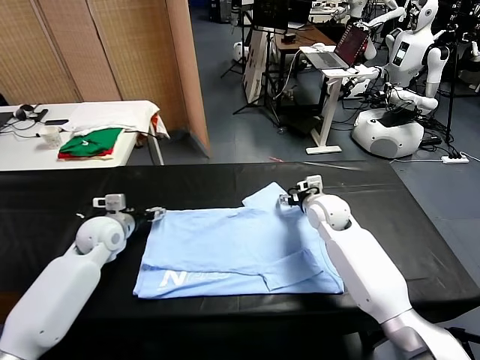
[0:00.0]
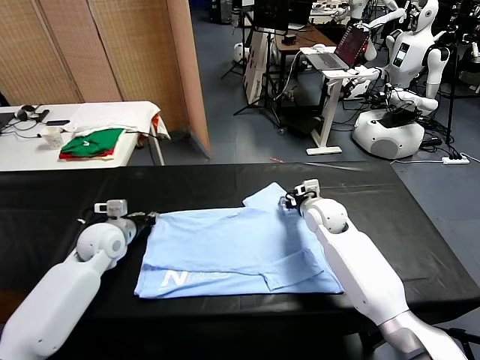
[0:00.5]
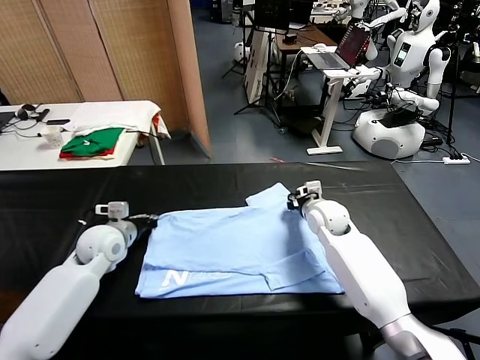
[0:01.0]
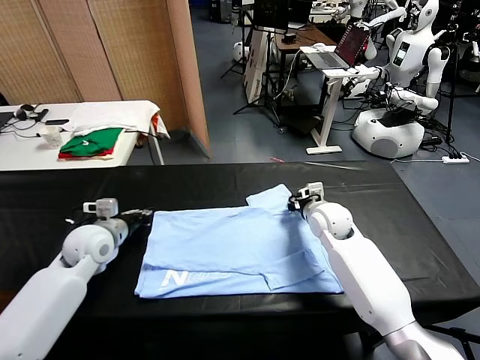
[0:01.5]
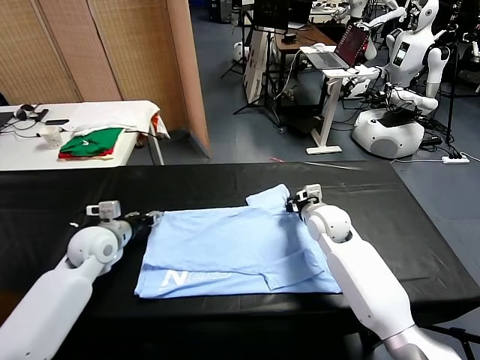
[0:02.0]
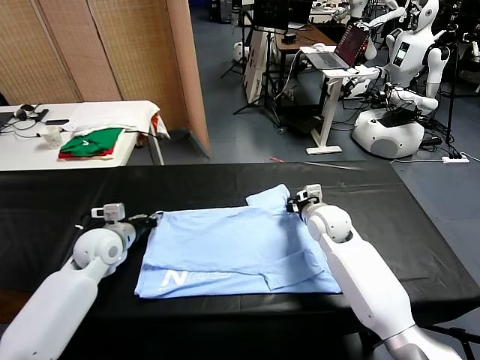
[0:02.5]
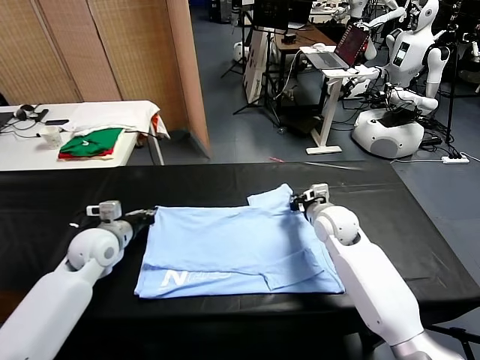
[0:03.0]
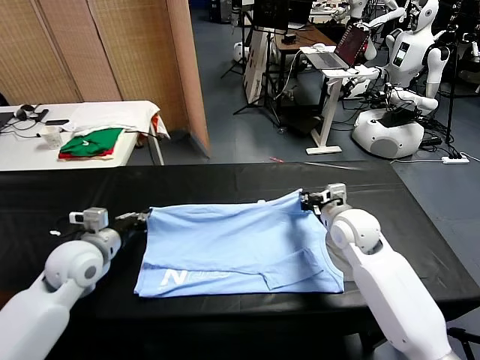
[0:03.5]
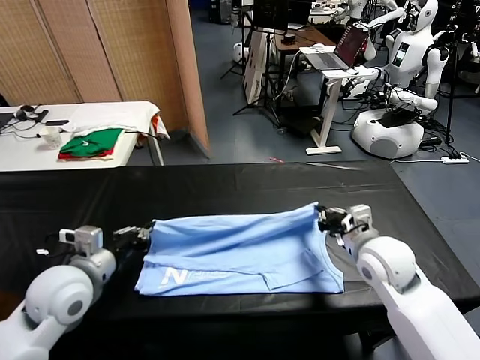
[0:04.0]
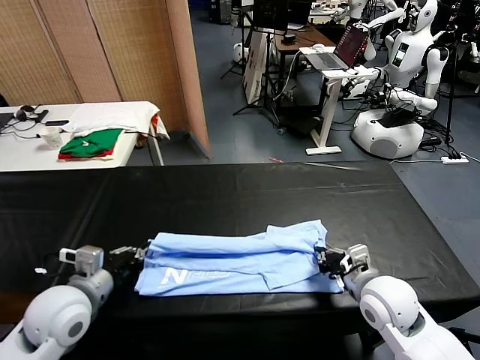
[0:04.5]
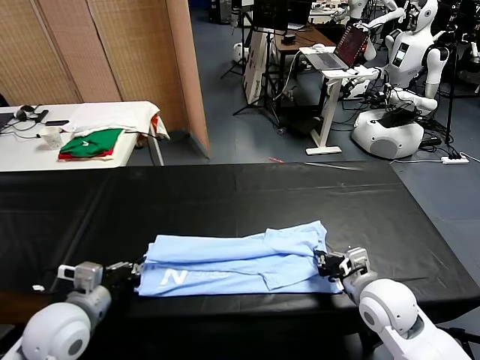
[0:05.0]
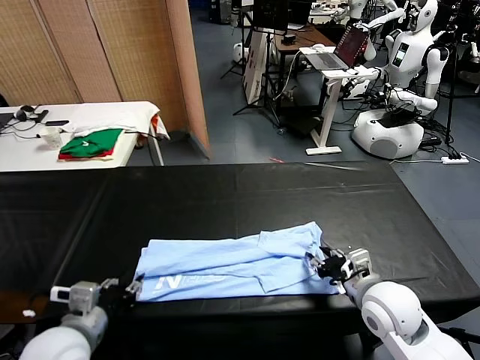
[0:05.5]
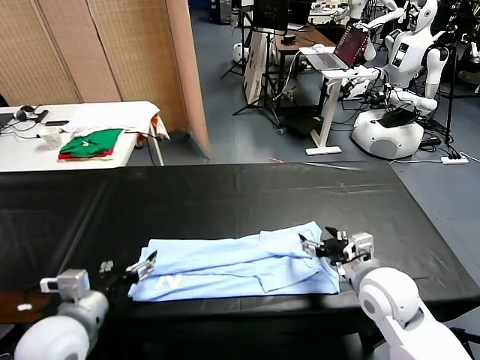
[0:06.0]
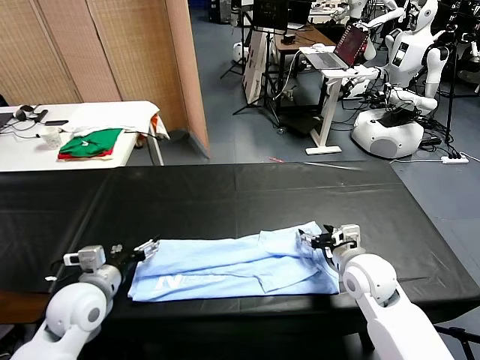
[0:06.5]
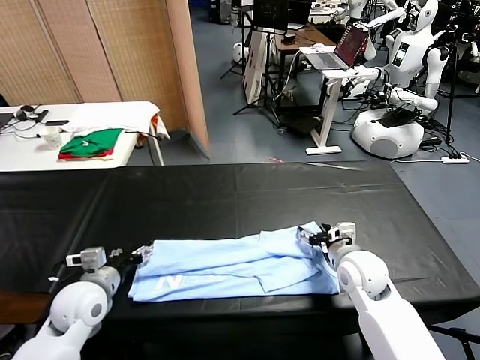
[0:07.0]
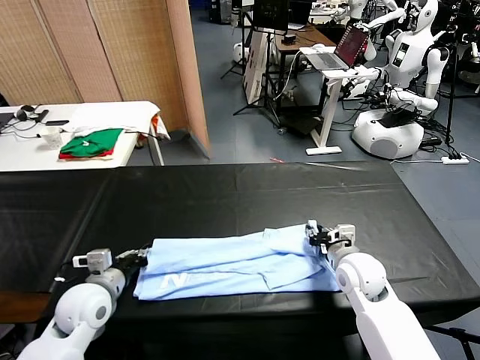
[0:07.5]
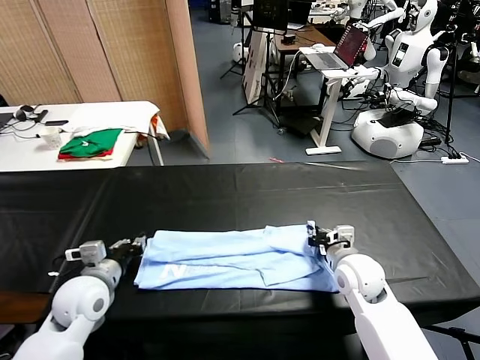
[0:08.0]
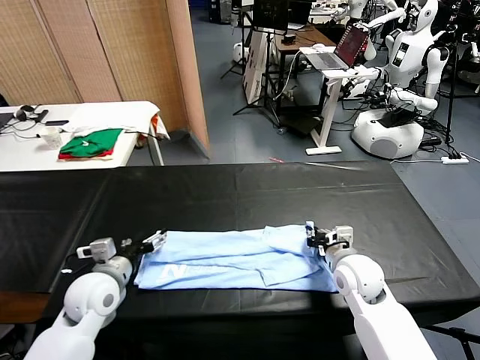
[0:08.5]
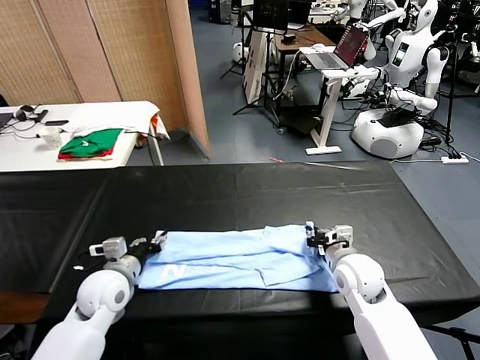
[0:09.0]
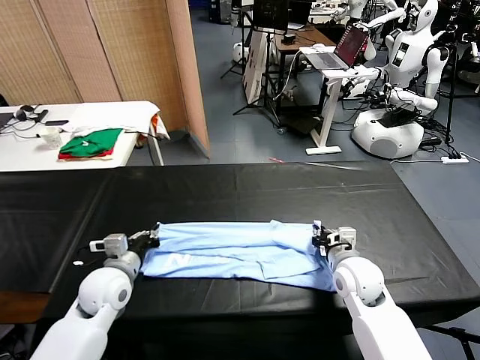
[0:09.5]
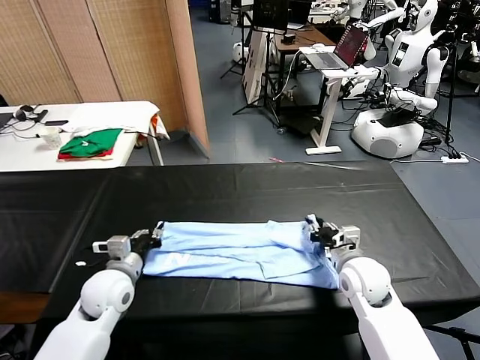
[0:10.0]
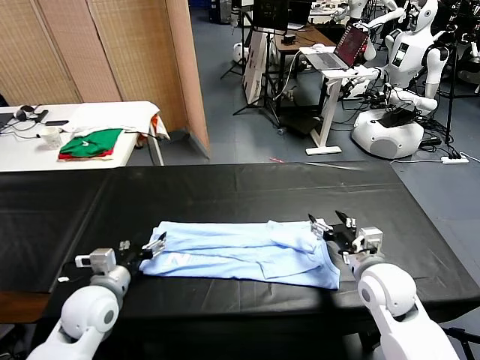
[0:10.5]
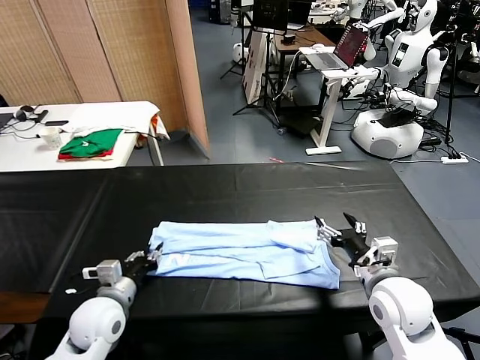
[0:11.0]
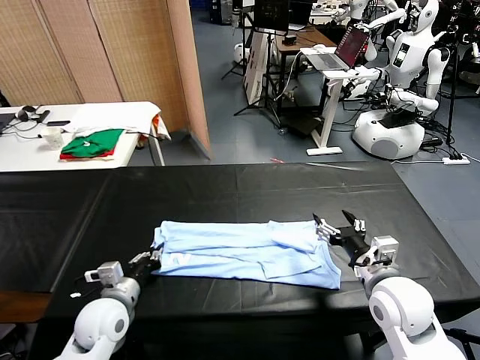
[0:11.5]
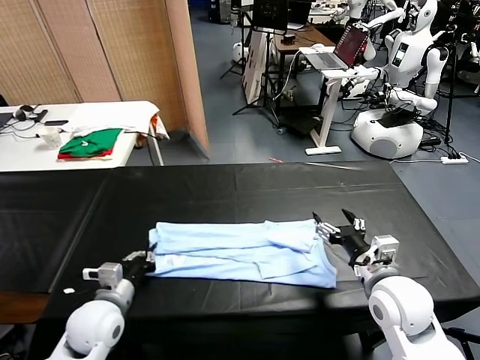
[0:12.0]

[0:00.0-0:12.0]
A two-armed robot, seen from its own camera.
Task of the whole recording: fold and organize the clothes.
Step, 1.0 to 5.5 s: use both grippers to drag the upper edge of the fabric backward and fold it over the lower edge.
Step, 6.0 to 11.5 s: use the left gripper to clamp the left edge of the fabric.
0.0 to 2.0 s: The right gripper closes its fingers, while the left gripper closes and opens again.
2.0 to 4.0 s: The left gripper shifts some 15 cm backward and upward, and closes; the right gripper travels backward and to the right by about 15 cm.
4.0 to 6.0 s: The left gripper shifts some 5 cm backward, and opens; the right gripper opens.
6.0 to 8.0 s: The right gripper travels downward by roughly 5 cm, and closes its fingers. The left gripper shifts approximately 10 cm forward and downward, and closes.
8.0 to 10.0 s: The left gripper closes and opens again. The right gripper opens.
10.0 to 12.0 s: The left gripper goes about 5 cm backward, and opens and closes again. The right gripper travels backward and upward by approximately 10 cm, and opens up.

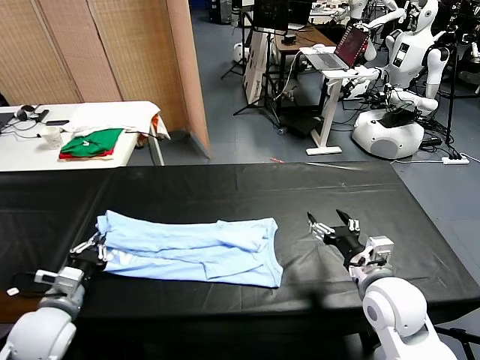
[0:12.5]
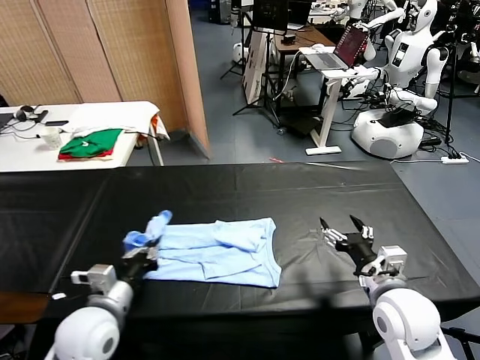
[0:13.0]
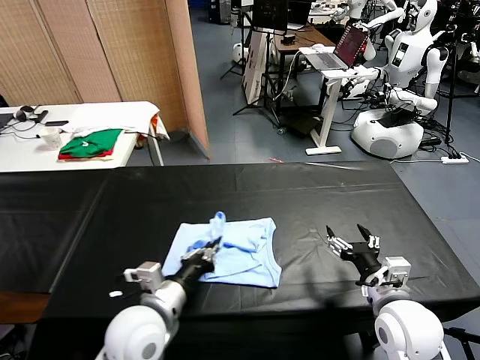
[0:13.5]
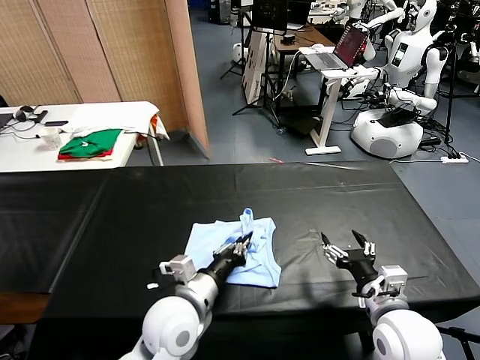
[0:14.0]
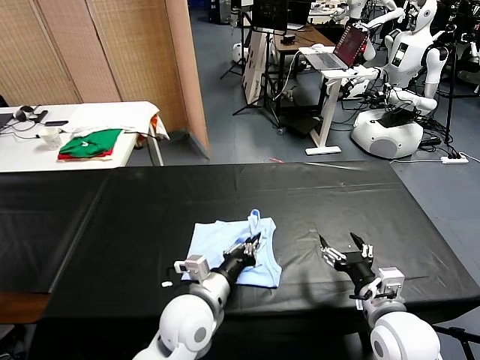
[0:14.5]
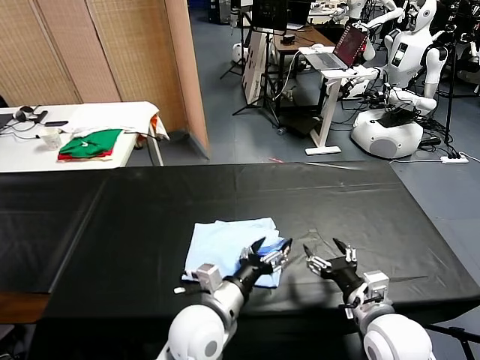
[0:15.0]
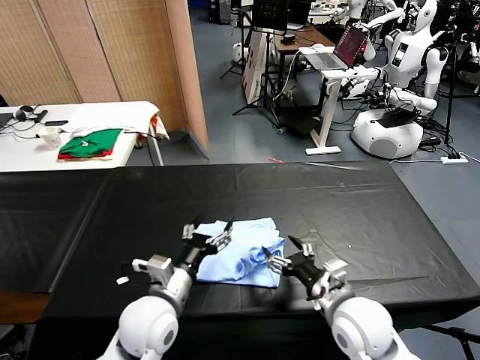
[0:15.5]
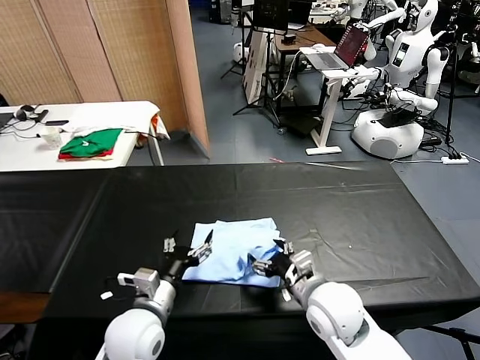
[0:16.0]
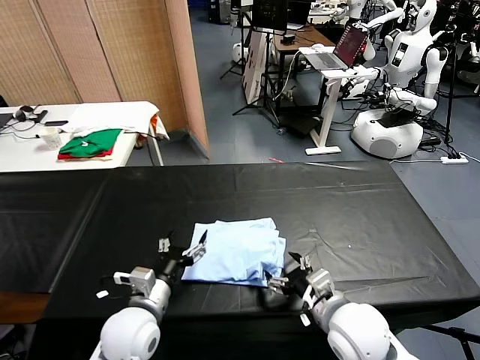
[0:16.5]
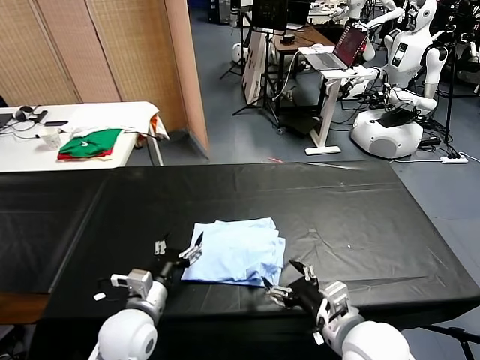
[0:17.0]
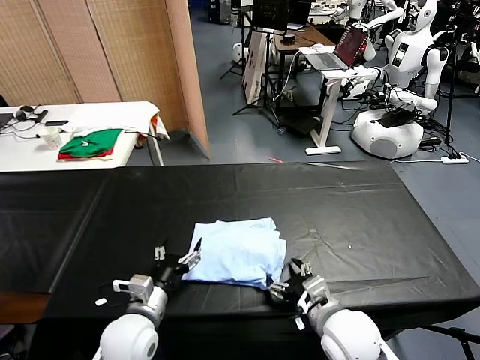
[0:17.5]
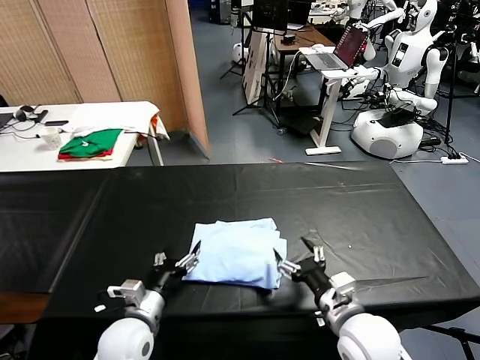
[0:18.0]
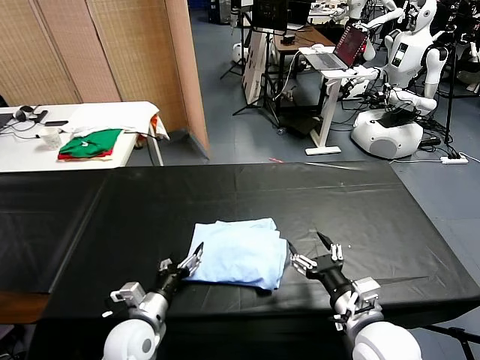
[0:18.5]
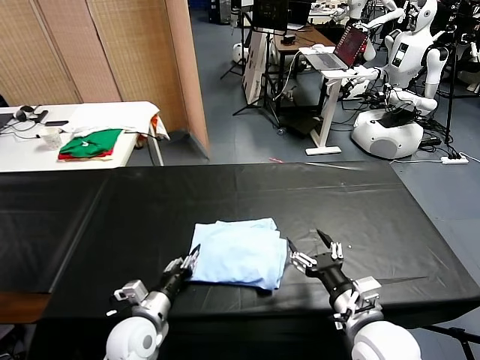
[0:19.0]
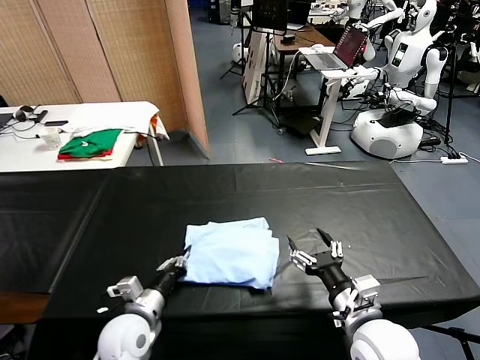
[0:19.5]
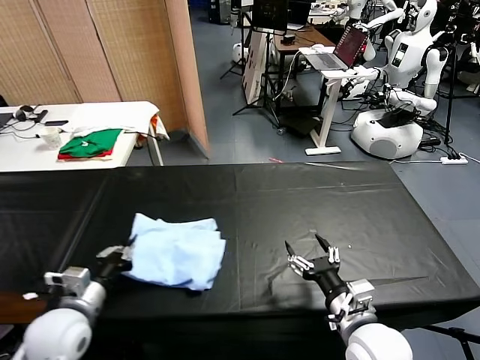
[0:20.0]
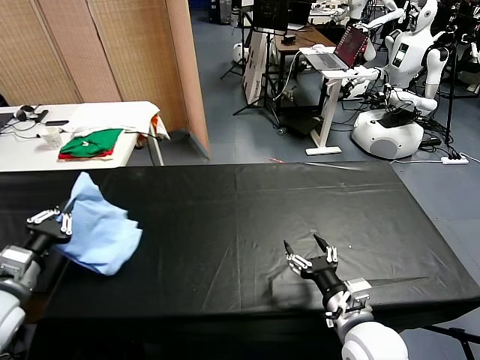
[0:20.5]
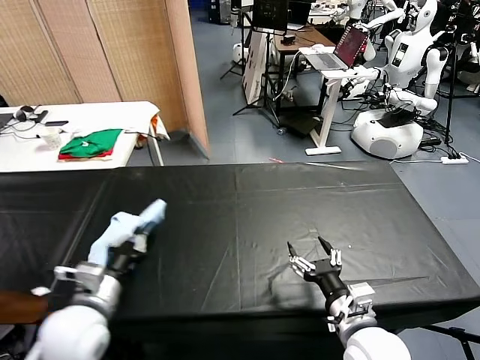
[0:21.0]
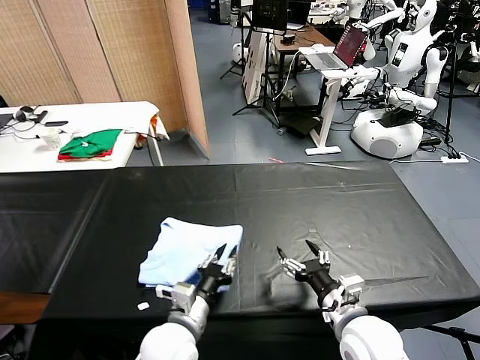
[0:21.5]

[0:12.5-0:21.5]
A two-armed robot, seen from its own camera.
Task of the whole recording: fold and organize the clothes.
Step, 12.5 to 14.5 s: use the left gripper to drag the left edge of the fabric to the left and folds it over the right edge.
Step, 15.0 to 21.5 s: Flip the folded clothes over with left gripper.
12.5 to 14.5 s: The left gripper goes some 25 cm to the right. The right gripper heads backward, covering about 5 cm.
14.5 to 17.0 s: The left gripper goes some 10 cm to the left, and opens up, while the right gripper travels to the left by approximately 5 cm.
17.0 to 19.5 s: The left gripper ends up some 5 cm from where it was, and closes.
19.5 to 21.5 s: The left gripper travels to the right by approximately 10 cm.

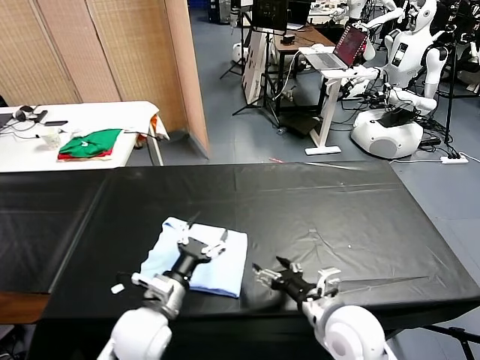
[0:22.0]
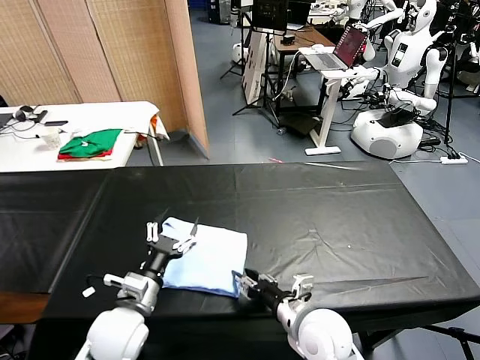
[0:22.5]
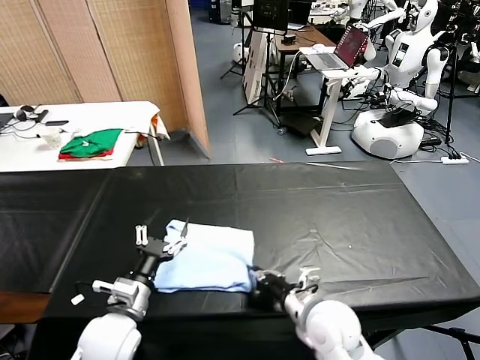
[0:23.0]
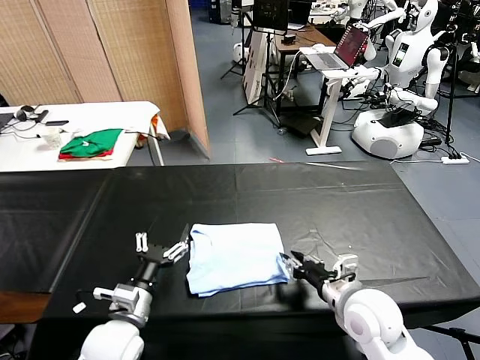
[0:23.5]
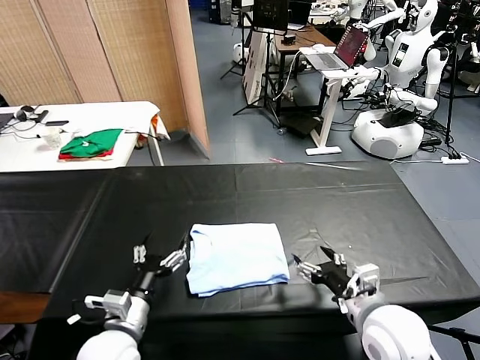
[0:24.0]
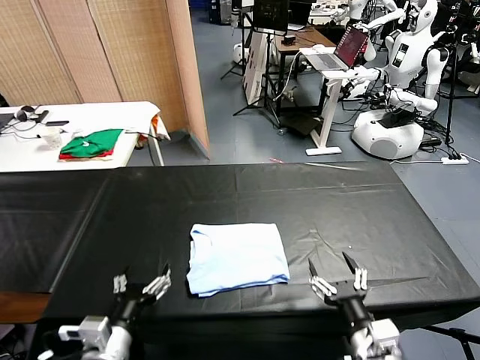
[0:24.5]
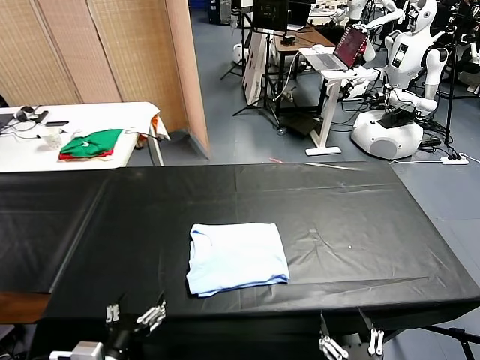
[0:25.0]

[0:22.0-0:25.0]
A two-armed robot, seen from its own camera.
Task of the whole recording: fold and organize the clothes.
Step, 22.0 to 23.5 s: Drag the clothes to the center of the table.
22.0 to 23.5 s: The right gripper closes up; the left gripper travels to the left by some 5 cm.
23.5 to 25.0 s: The right gripper shifts approximately 20 cm backward, and opens up; the left gripper is displaced backward by roughly 10 cm.

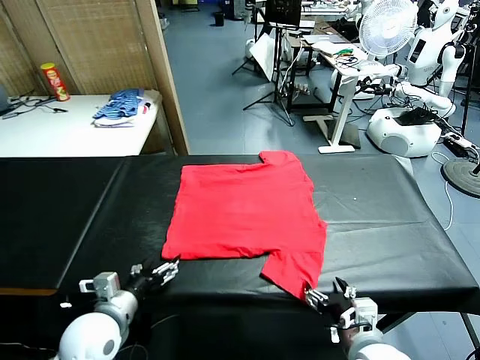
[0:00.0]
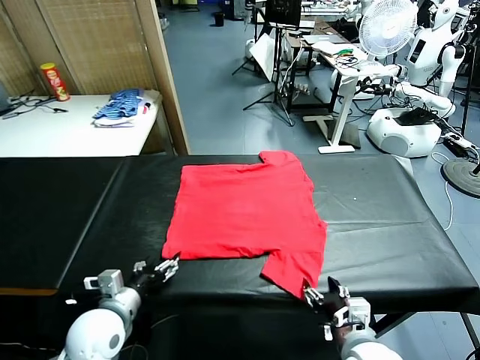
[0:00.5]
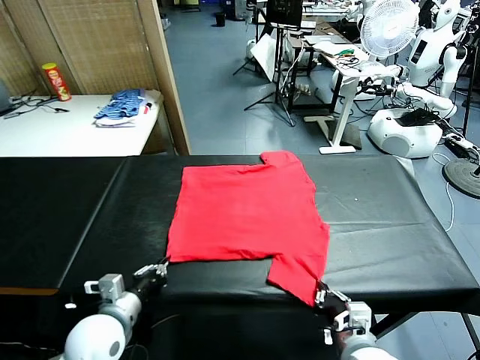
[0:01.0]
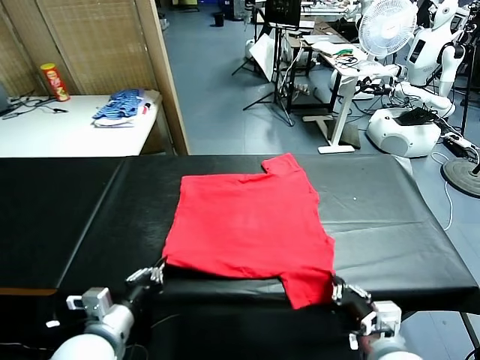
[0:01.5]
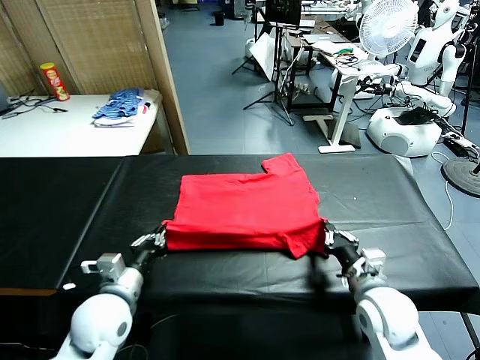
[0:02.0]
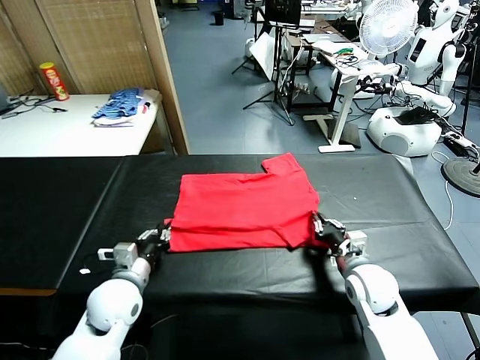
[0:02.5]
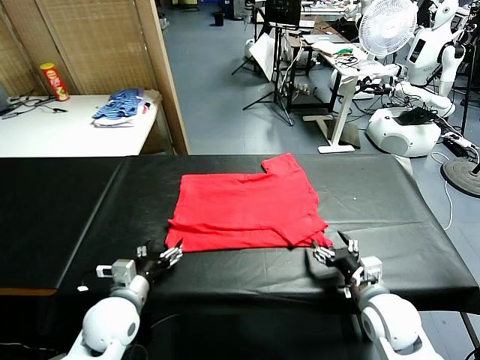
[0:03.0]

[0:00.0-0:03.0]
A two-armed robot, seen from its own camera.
Task of the whole recording: fold and organize the clothes.
Step, 0.0 to 1.0 s: use both grippers simultaneously to clamp the lower edge of the clothing fabric.
Step, 1.5 to 2.5 s: use both grippers to drag the lower edge of the fabric forward and fold it over the upper edge.
1.5 to 3.0 s: The left gripper is displaced forward and downward by some 10 cm, and opens up. Meanwhile the right gripper is displaced downward by roughly 5 cm, and opens up.
